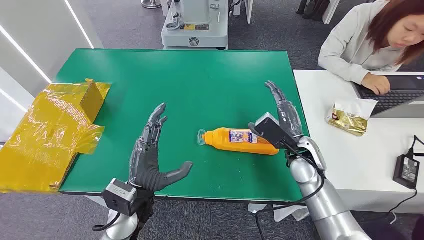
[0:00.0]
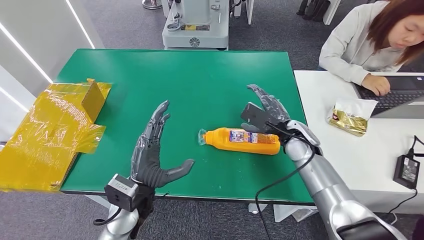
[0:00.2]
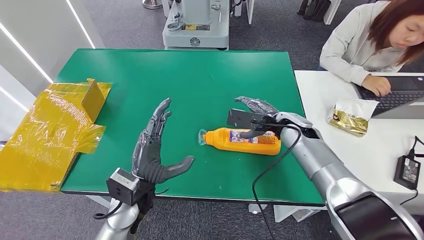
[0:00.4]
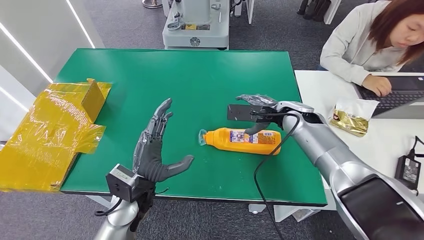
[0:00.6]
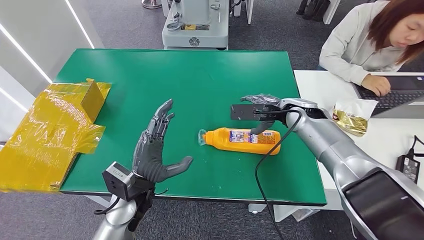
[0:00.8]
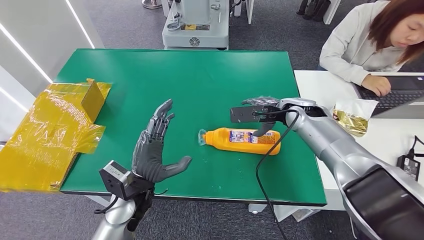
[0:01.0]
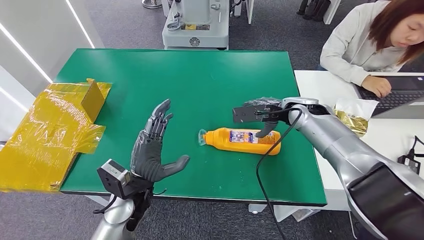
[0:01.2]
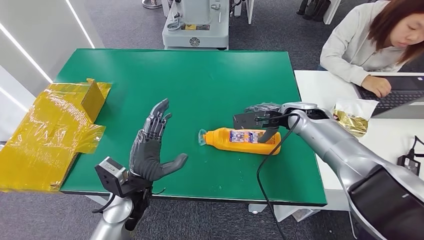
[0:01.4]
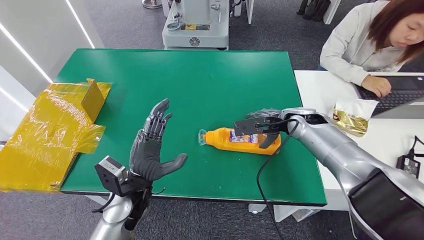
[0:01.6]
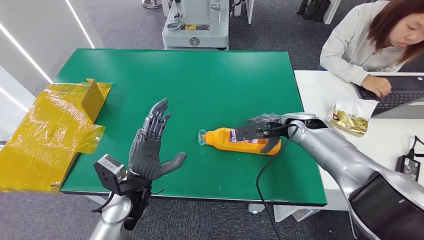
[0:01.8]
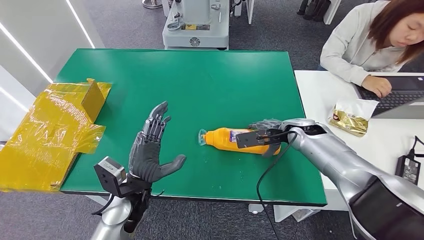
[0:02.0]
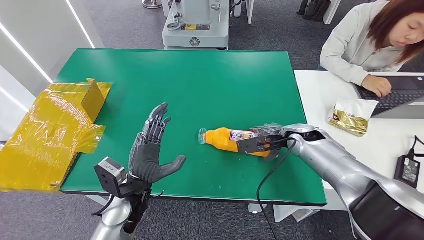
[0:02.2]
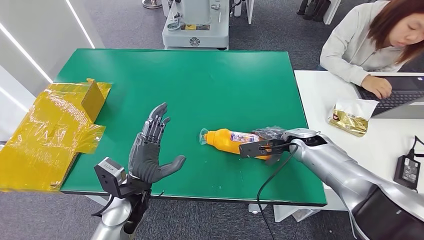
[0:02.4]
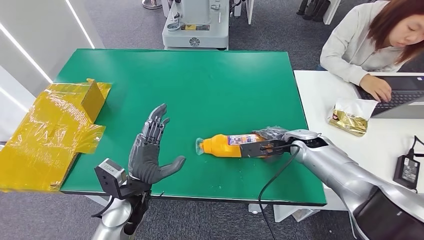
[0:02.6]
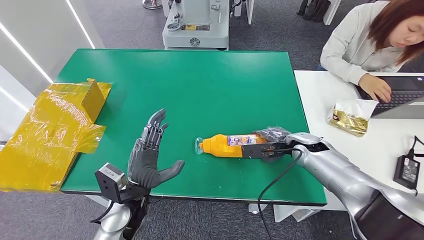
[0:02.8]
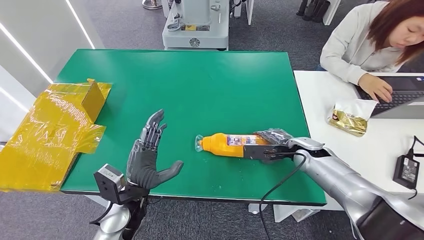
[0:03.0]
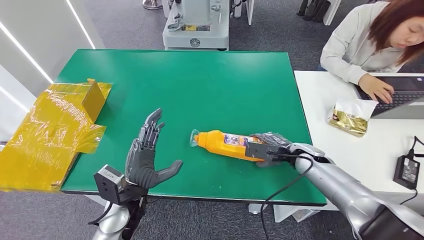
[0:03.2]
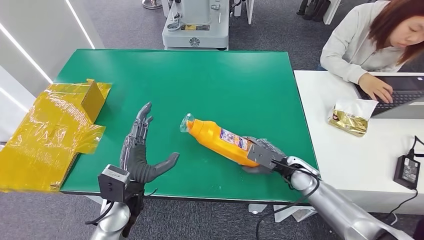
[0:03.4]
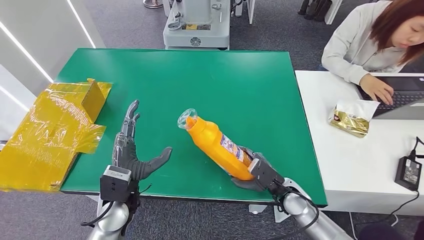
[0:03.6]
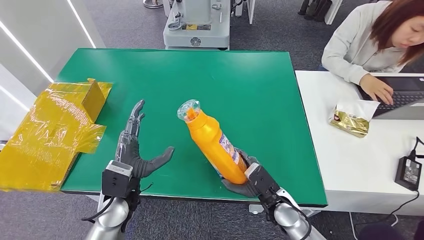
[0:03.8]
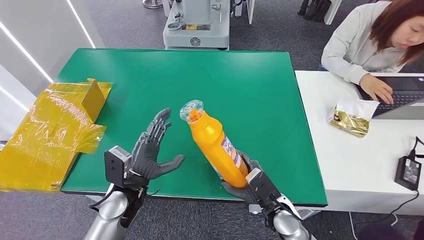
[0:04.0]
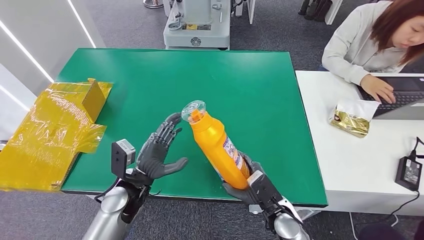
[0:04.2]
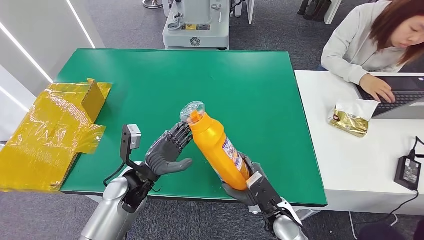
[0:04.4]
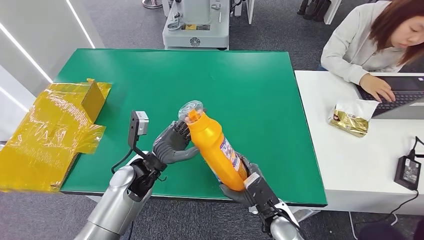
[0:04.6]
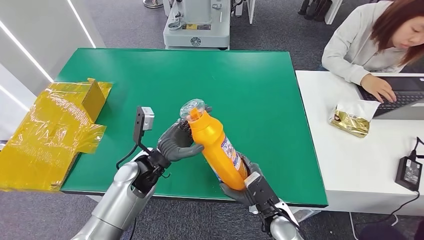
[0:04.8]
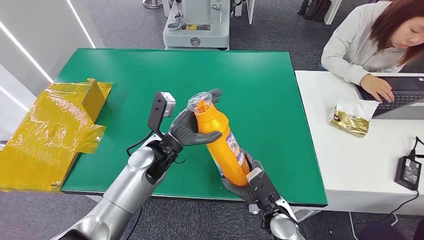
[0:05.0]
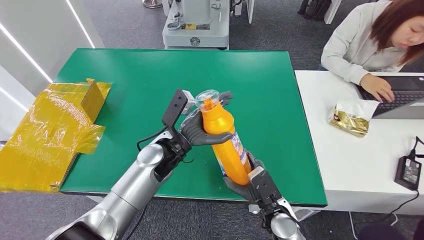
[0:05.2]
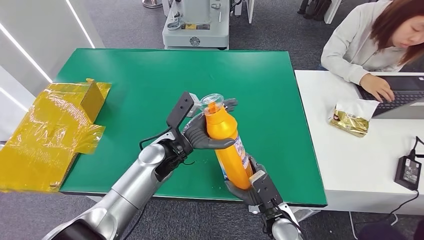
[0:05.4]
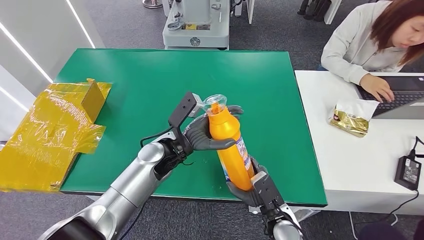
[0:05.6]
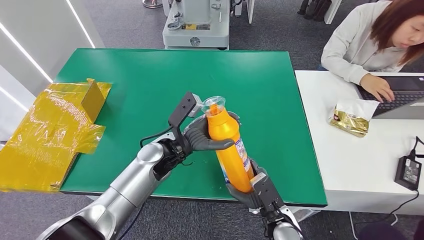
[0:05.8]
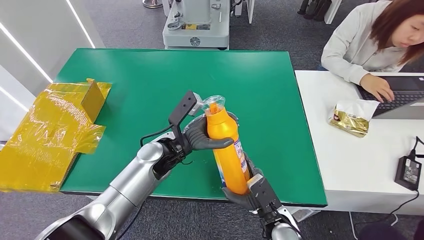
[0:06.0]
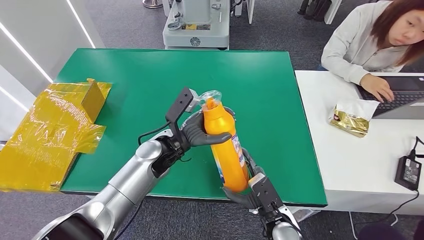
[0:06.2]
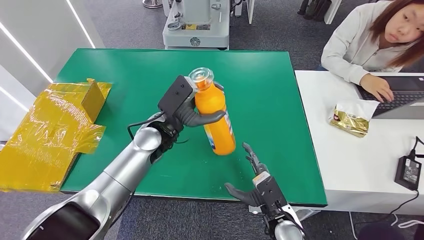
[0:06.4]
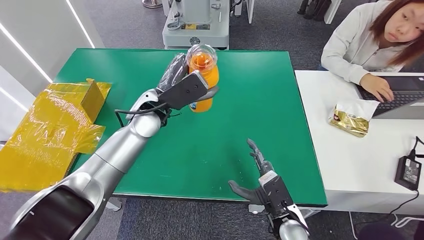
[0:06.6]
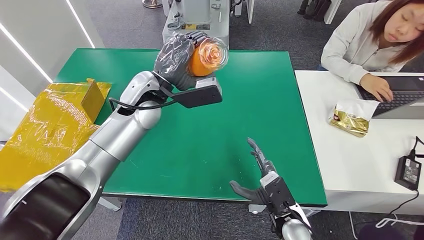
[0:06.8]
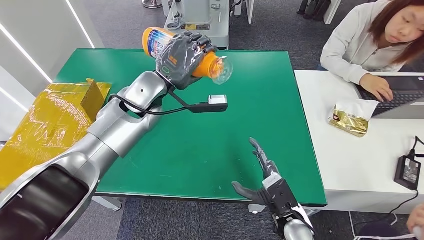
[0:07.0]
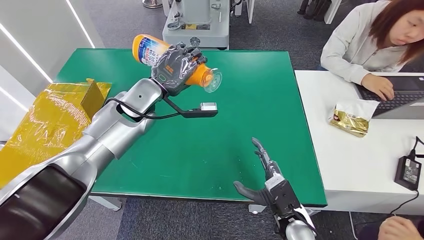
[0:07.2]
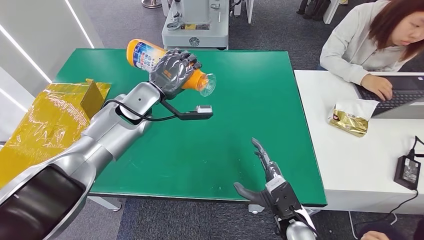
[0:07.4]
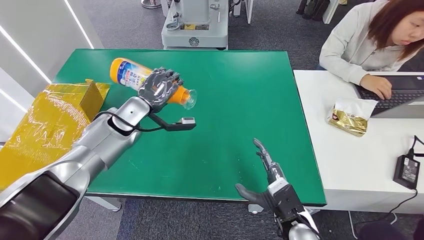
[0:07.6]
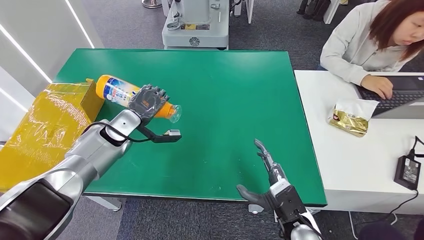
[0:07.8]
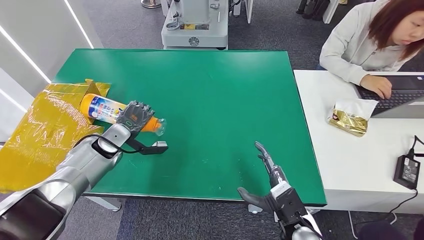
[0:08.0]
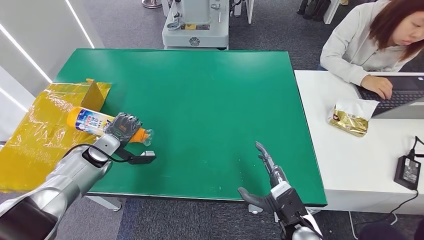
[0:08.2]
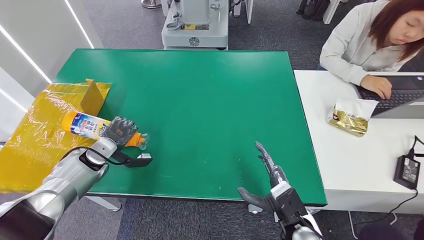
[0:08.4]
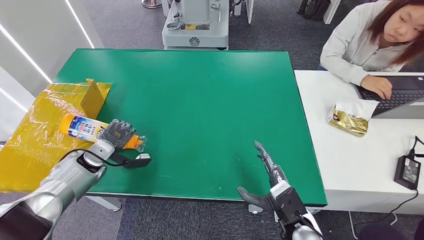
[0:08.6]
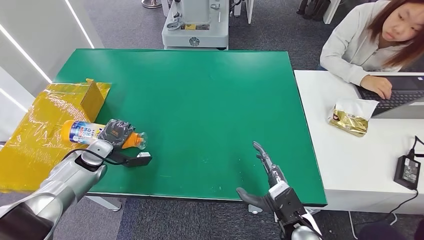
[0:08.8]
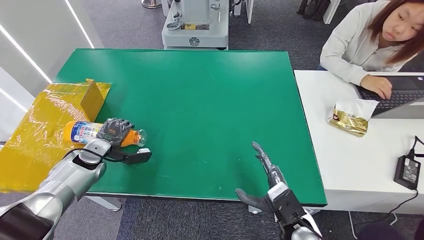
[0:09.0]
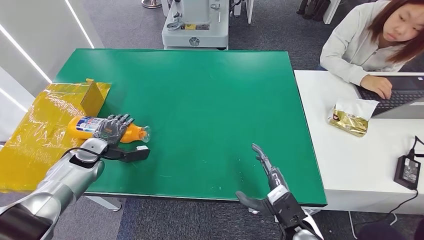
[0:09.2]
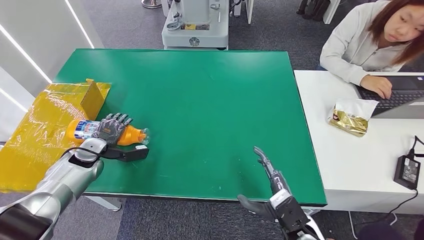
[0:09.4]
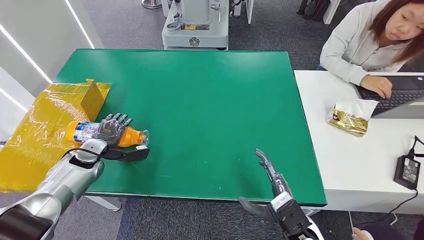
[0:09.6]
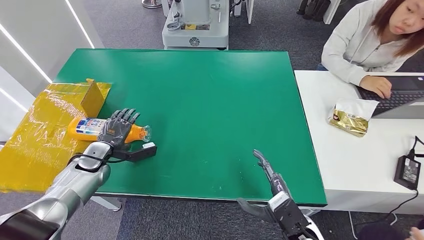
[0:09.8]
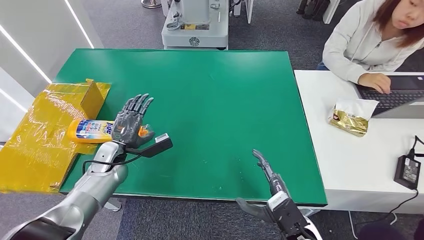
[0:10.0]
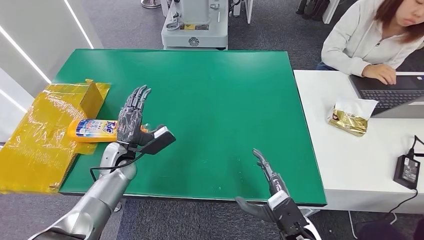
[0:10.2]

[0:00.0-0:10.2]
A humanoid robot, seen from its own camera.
Step, 0:00.0 to 0:03.8: Pick up the bottle from the table.
Step, 0:05.6 to 0:10.2: Turn the bottle to the front side.
0:01.4 to 0:03.0: The right hand moves downward and backward, about 10 cm.
0:03.0 to 0:04.4: The right hand shifts roughly 20 cm backward and to the left, while the left hand goes approximately 5 cm forward.
0:04.4 to 0:05.8: The left hand goes roughly 10 cm forward and to the right.
0:07.2 to 0:08.8: The left hand heads to the left and downward, covering some 25 cm.
0:08.8 to 0:10.2: The left hand heads to the right, covering about 15 cm.
